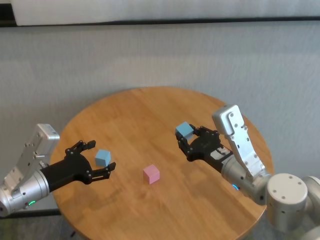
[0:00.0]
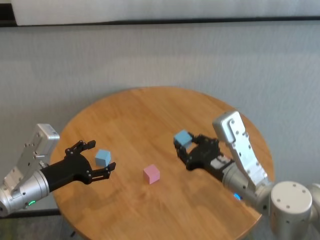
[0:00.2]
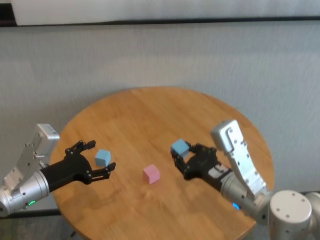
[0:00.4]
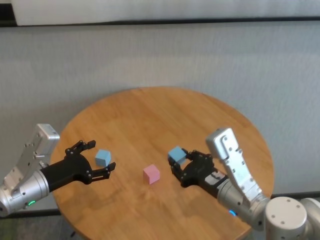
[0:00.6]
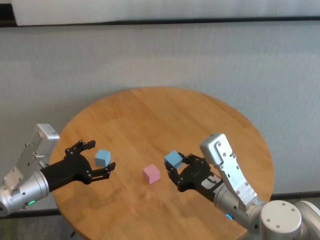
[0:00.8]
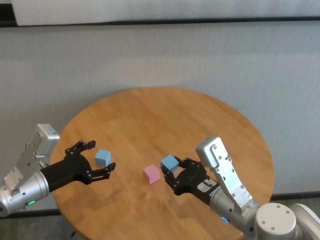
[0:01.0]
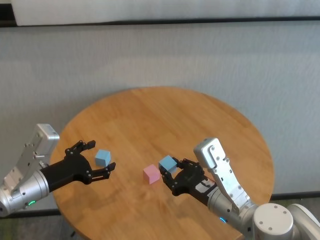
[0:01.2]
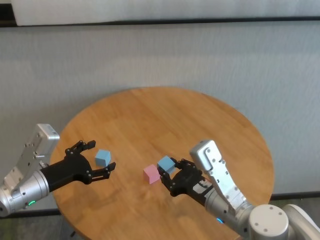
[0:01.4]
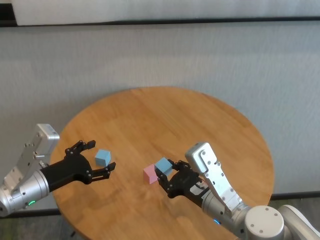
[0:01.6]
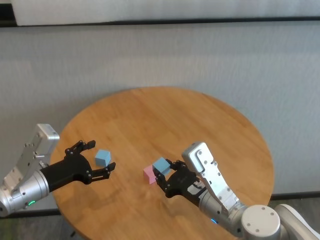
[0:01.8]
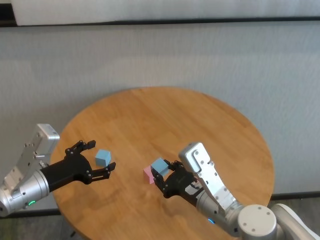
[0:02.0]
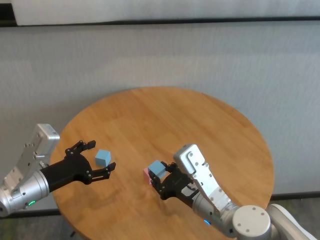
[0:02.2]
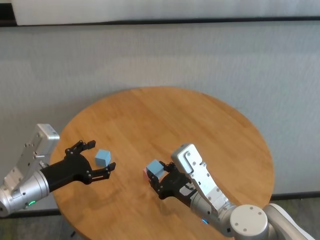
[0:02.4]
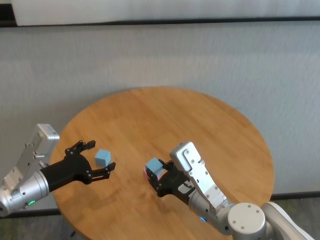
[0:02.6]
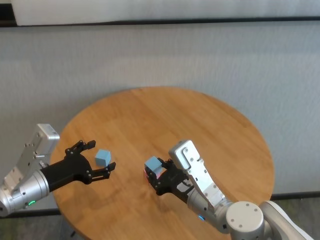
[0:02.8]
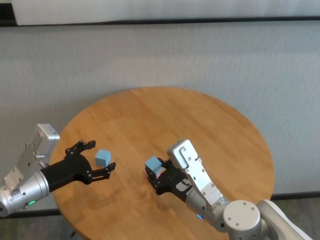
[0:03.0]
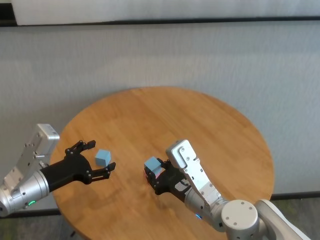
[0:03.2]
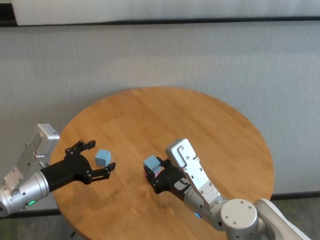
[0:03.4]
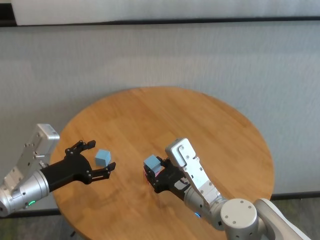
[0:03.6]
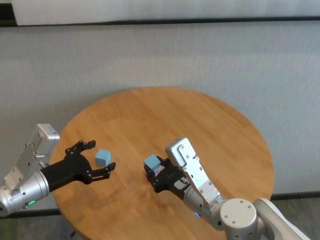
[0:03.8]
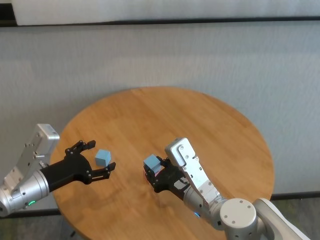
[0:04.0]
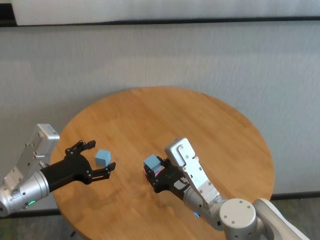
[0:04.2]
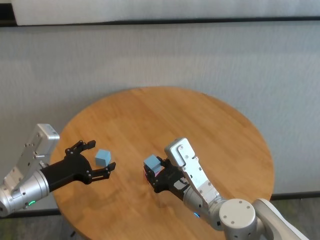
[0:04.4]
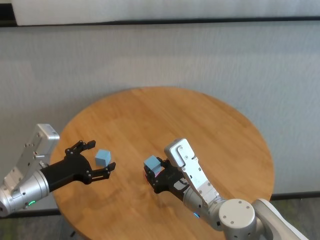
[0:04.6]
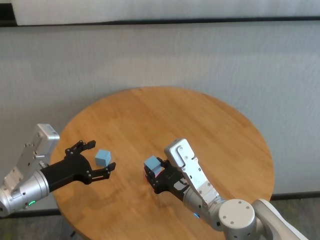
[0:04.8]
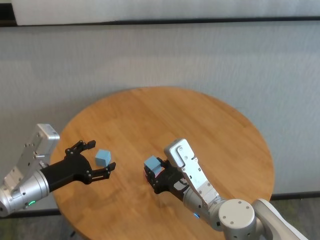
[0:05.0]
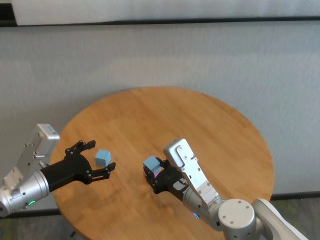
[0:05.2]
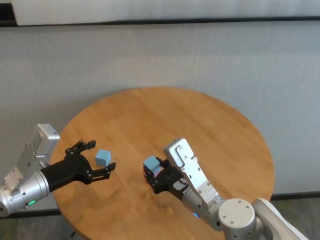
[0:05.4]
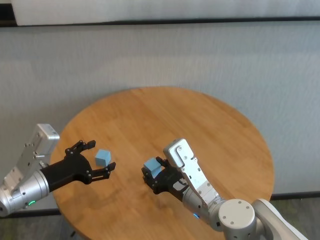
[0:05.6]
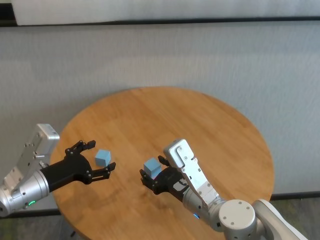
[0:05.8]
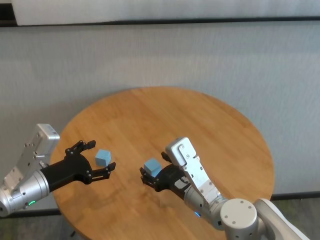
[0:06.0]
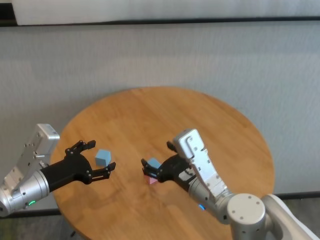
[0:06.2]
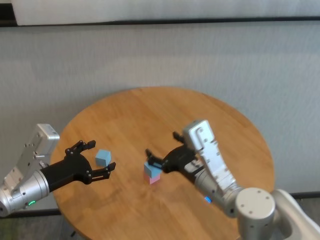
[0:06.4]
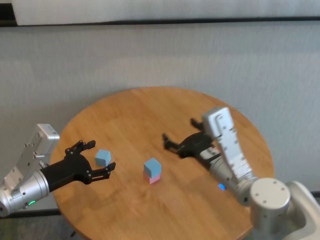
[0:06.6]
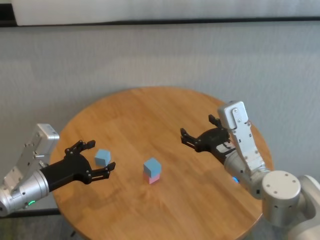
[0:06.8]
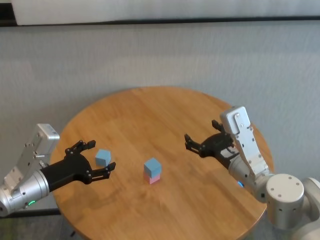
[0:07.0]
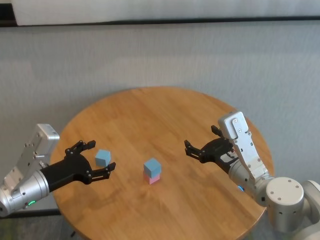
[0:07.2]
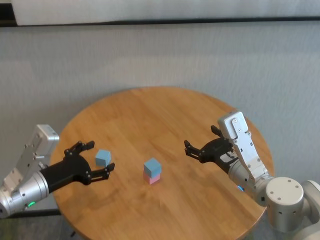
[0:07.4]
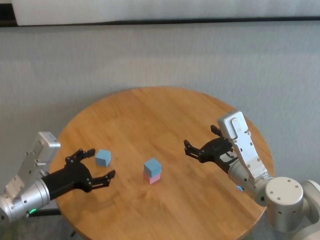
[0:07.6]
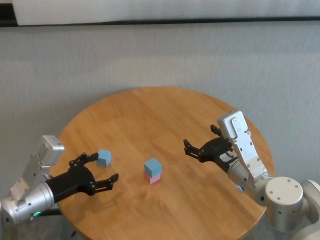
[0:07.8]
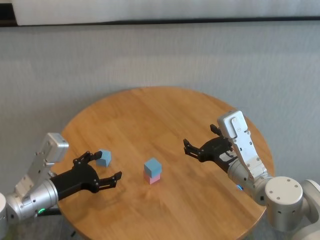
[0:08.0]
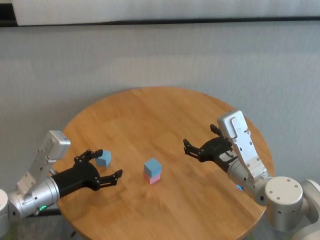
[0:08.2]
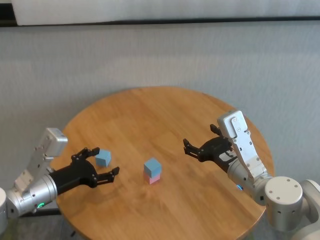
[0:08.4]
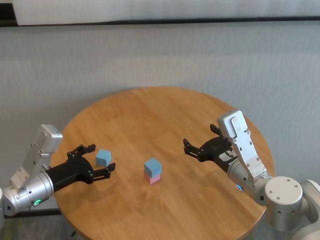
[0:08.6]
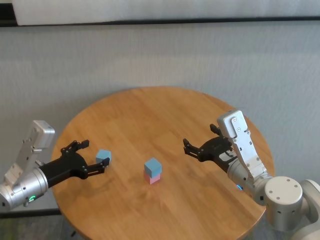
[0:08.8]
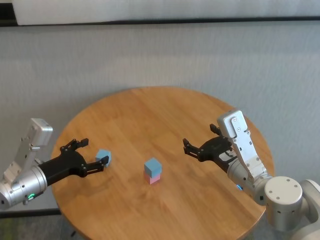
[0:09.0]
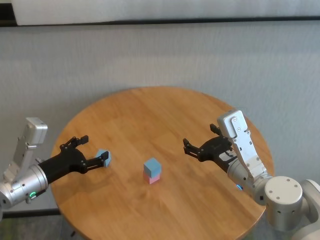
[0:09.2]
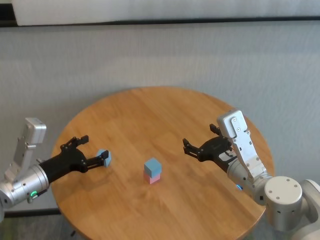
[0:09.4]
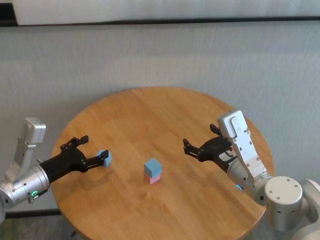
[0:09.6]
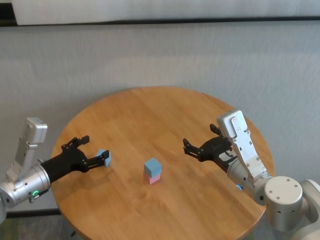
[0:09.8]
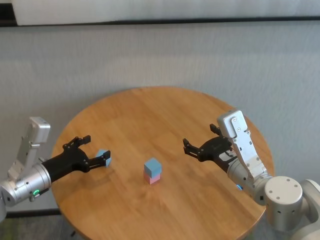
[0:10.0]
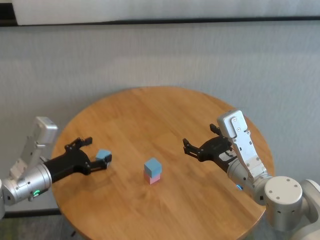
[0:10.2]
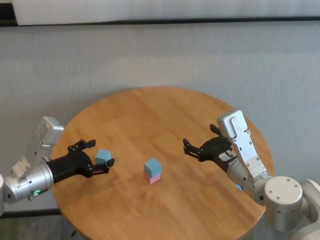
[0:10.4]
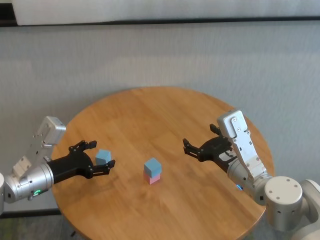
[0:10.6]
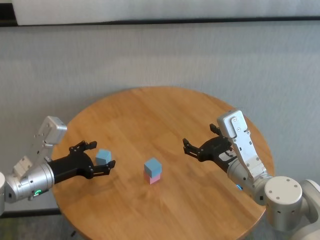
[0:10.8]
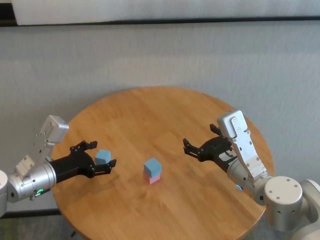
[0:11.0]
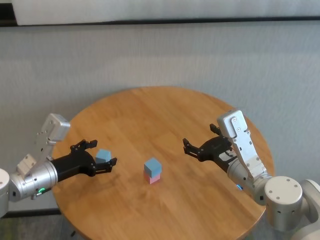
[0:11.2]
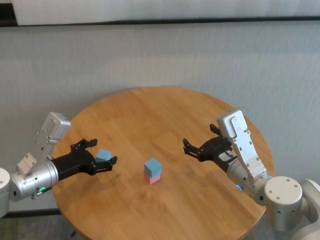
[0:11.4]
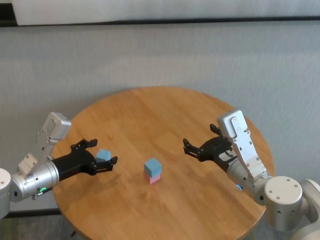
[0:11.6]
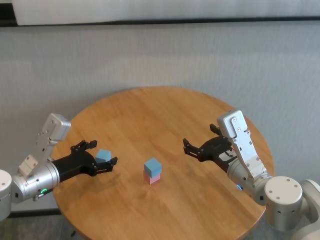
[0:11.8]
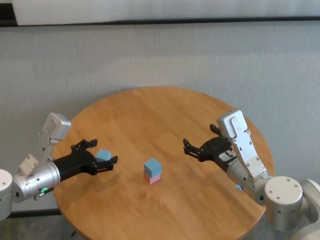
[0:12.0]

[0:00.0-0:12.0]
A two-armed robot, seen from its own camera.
Task of the whole recording: stack building blocks on the table.
Step, 0:00.0 to 0:05.8: Place the blue building block on the pink building blocks with right gripper.

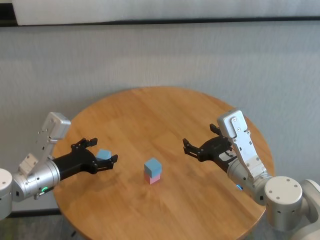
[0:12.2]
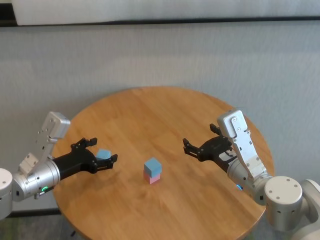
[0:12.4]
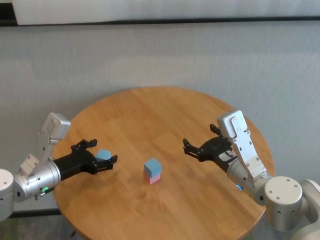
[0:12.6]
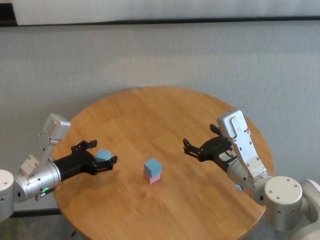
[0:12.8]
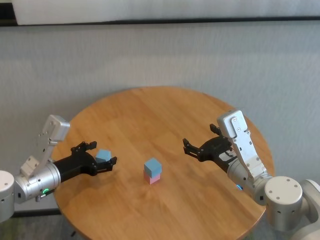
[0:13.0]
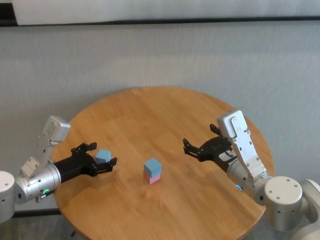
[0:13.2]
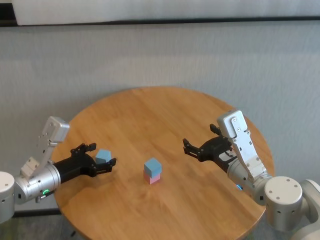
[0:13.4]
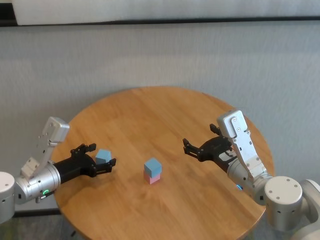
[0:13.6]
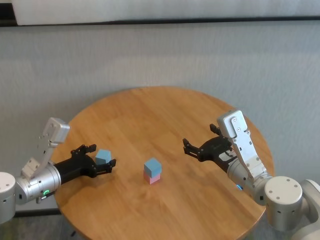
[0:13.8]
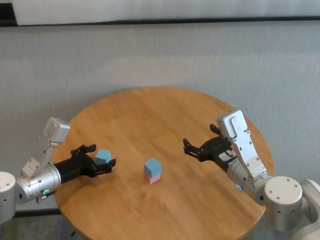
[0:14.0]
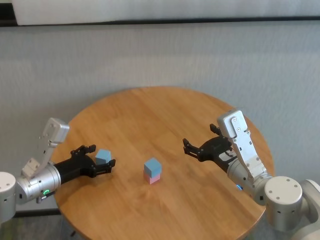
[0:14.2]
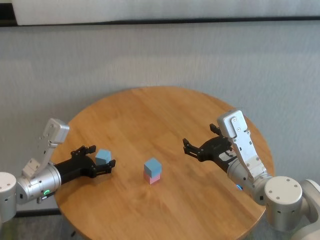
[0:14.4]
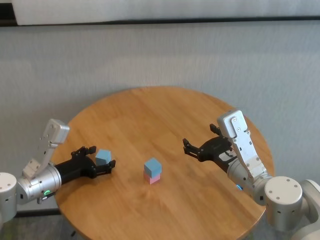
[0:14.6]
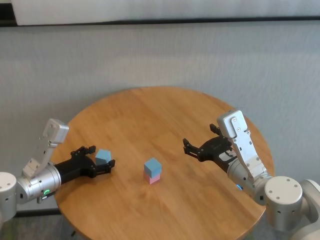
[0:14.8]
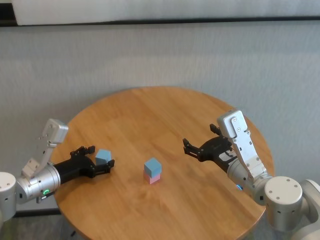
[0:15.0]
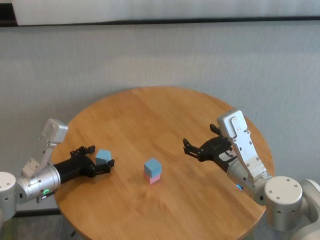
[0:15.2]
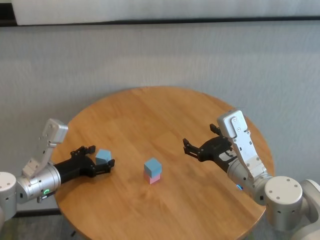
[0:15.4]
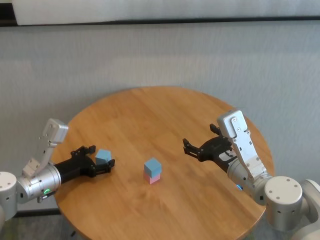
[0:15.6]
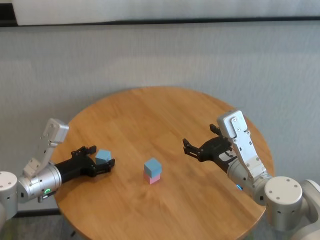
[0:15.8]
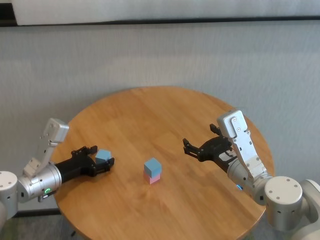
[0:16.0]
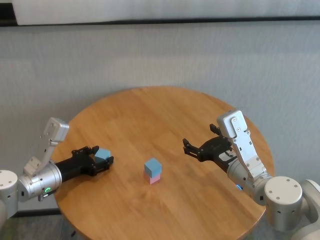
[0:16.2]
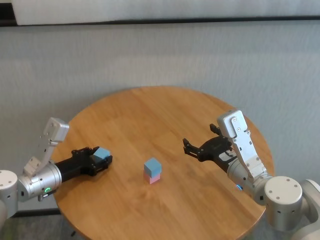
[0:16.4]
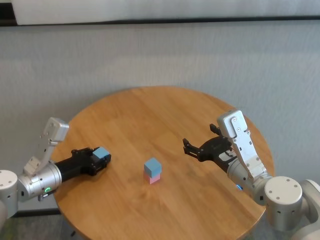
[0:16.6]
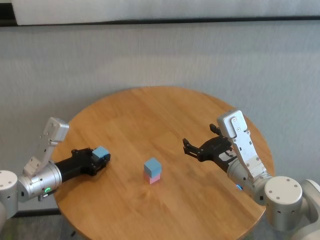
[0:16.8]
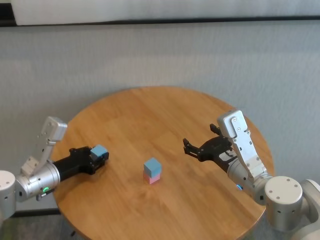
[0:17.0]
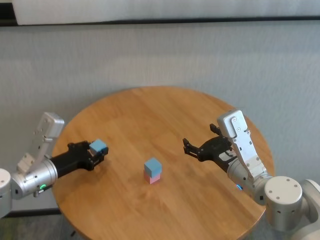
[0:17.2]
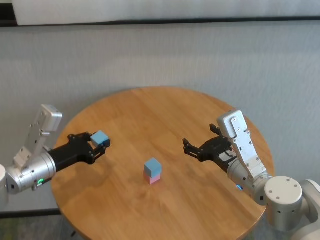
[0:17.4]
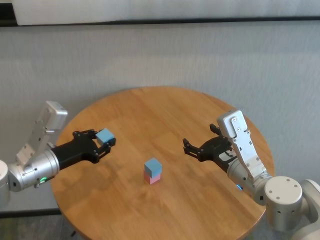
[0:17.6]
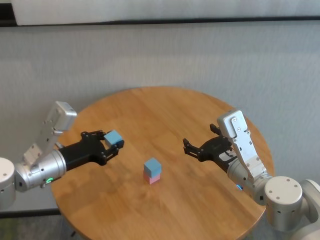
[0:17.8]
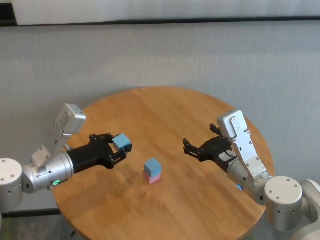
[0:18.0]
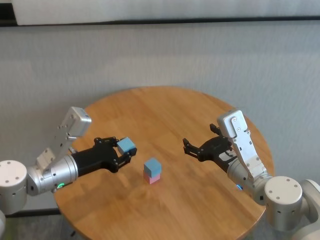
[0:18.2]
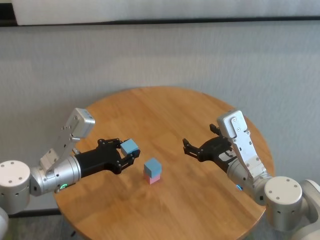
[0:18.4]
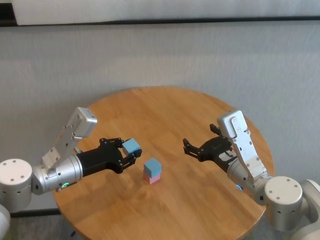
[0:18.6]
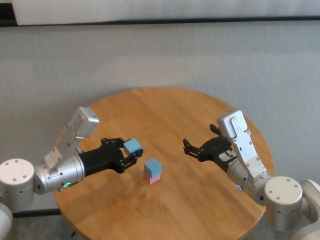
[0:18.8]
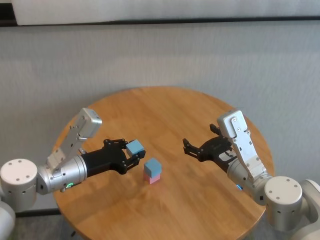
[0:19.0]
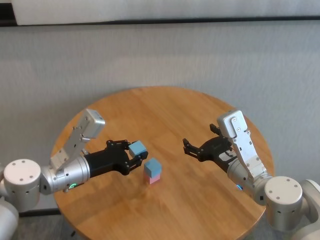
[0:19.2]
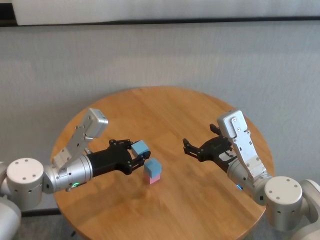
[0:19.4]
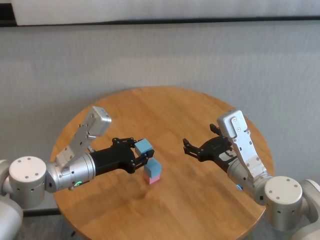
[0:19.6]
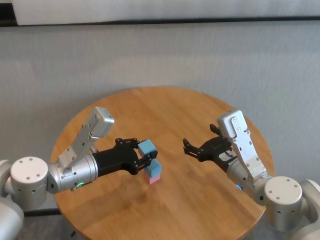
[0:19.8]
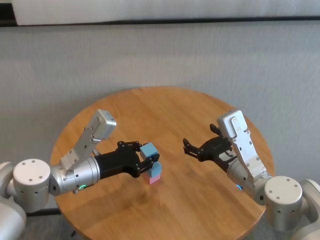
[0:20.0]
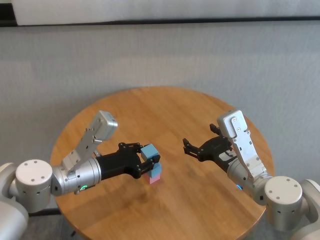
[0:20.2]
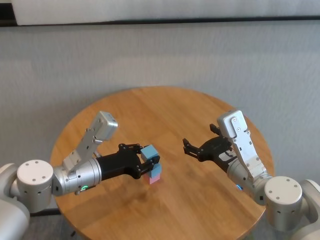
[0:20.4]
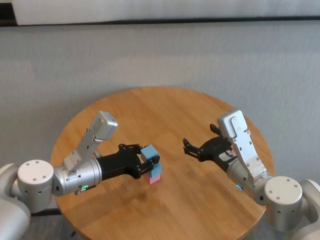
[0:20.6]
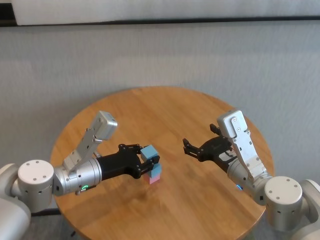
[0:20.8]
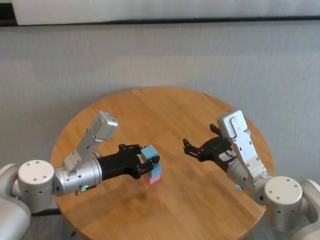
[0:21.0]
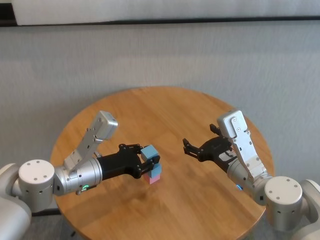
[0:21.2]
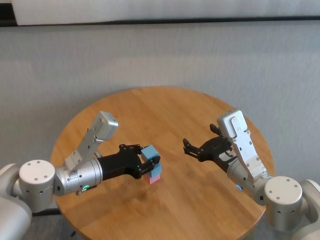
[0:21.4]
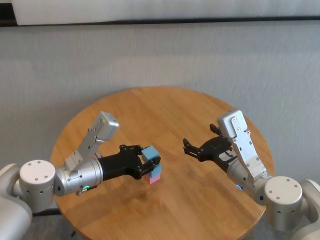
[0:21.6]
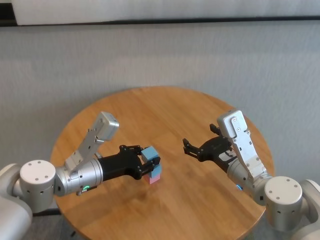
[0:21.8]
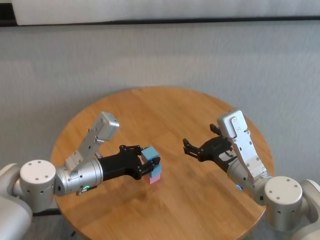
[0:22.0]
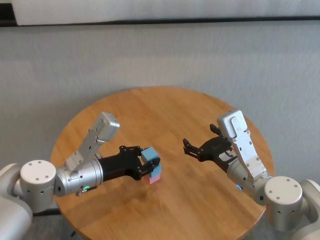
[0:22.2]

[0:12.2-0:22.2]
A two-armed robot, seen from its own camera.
Task of the whole recording: stack building blocks on the table.
Step, 0:12.2 to 0:16.6: Grasp the blue building block with left gripper.

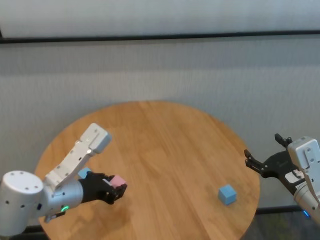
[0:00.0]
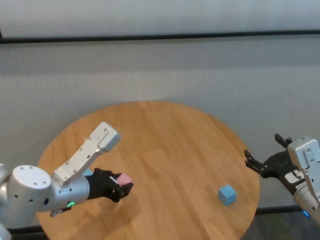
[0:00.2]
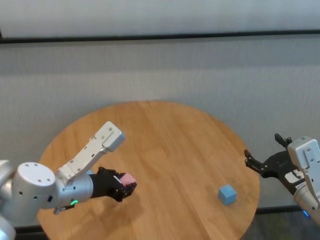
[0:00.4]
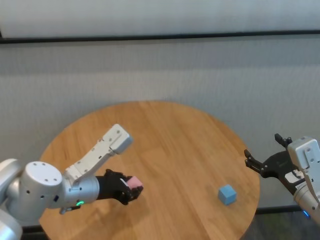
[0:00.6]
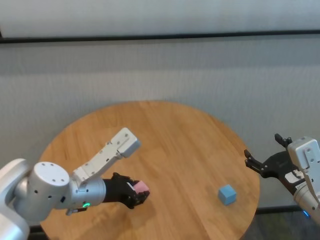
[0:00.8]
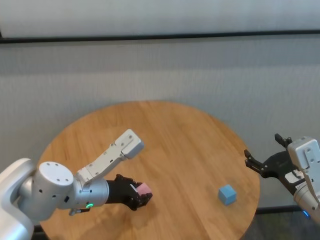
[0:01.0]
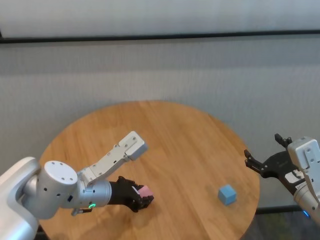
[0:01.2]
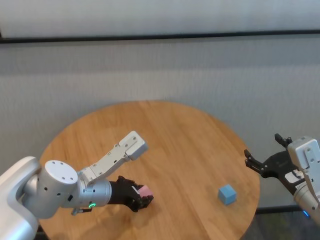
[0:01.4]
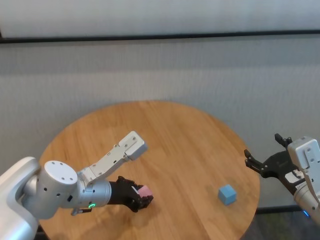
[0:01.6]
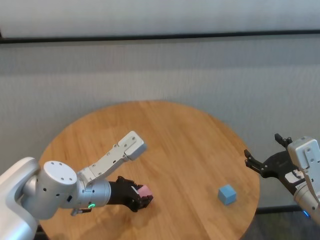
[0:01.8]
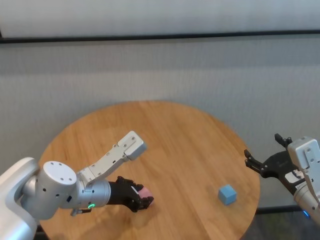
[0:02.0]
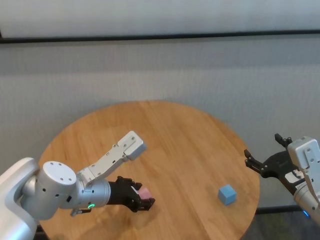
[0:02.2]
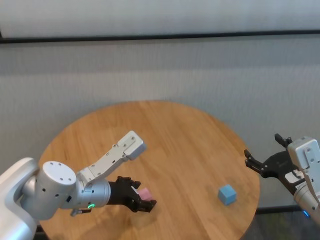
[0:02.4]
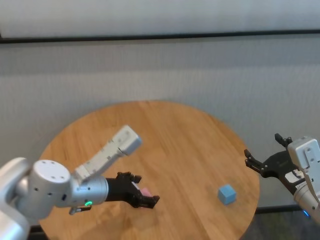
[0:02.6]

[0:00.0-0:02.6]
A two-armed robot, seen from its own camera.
Task of the whole recording: stack building blocks on the table.
Step, 0:00.0 to 0:02.2: Place the pink building block in the center of table with left gripper.
